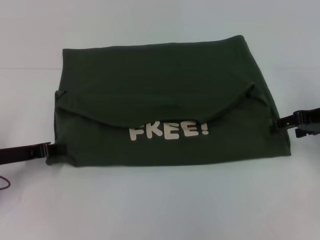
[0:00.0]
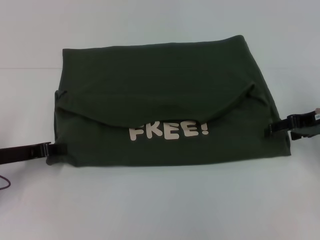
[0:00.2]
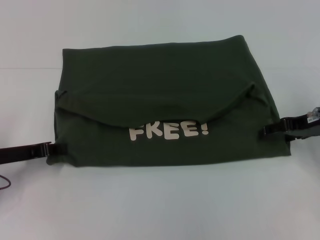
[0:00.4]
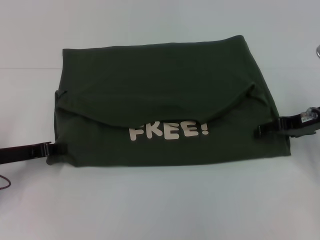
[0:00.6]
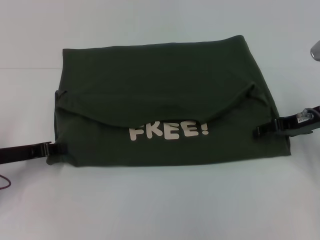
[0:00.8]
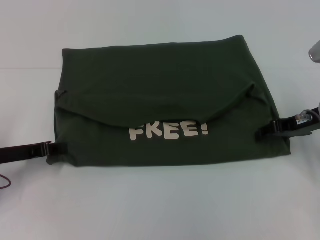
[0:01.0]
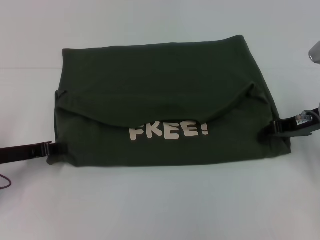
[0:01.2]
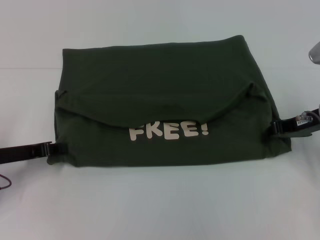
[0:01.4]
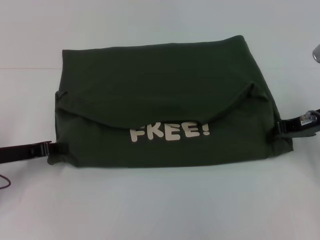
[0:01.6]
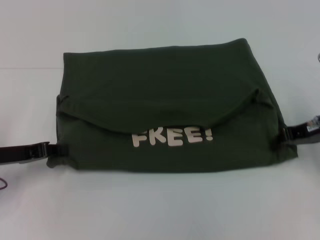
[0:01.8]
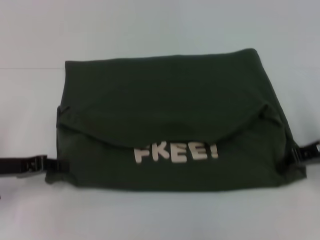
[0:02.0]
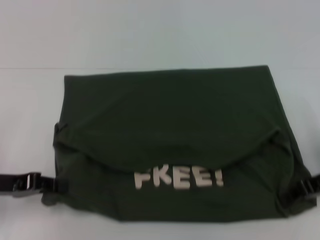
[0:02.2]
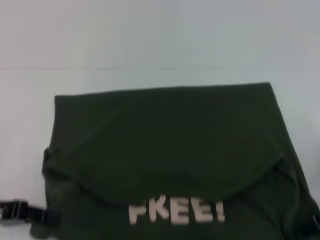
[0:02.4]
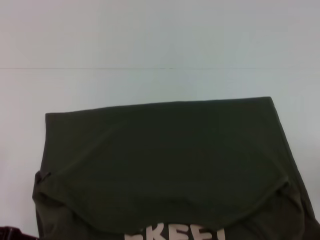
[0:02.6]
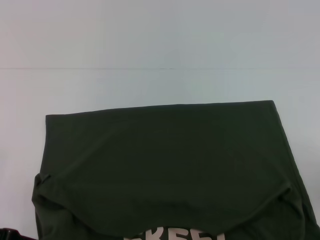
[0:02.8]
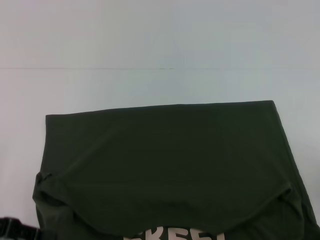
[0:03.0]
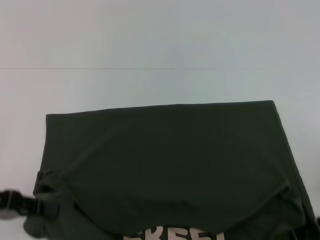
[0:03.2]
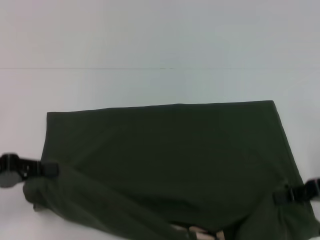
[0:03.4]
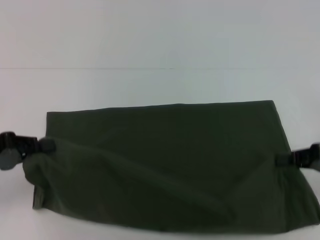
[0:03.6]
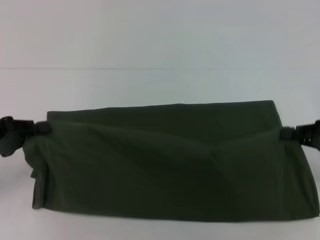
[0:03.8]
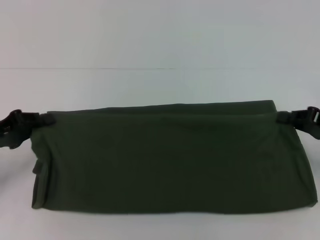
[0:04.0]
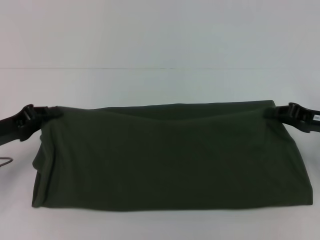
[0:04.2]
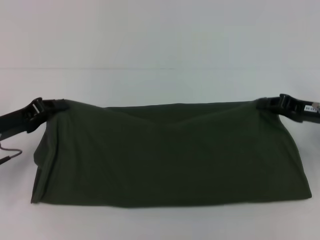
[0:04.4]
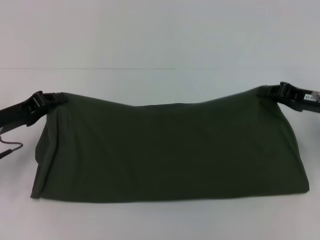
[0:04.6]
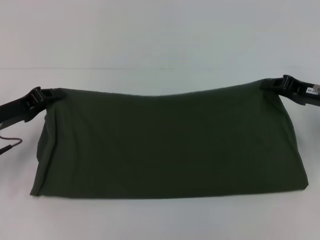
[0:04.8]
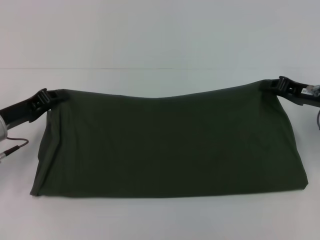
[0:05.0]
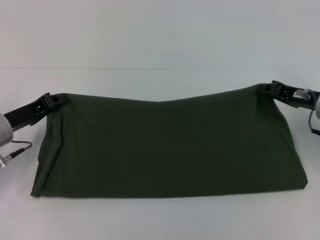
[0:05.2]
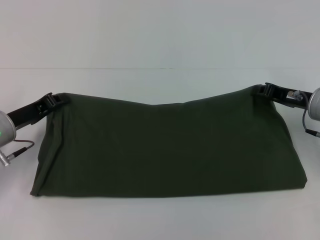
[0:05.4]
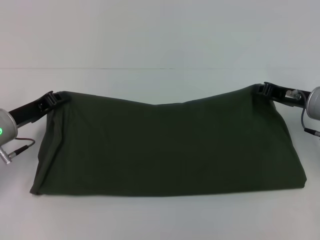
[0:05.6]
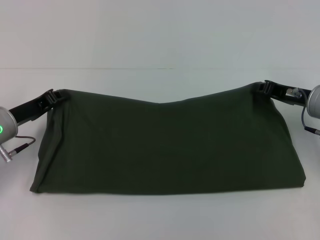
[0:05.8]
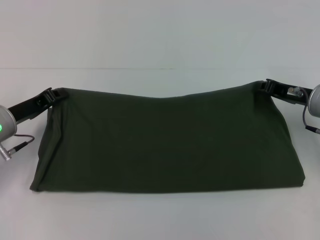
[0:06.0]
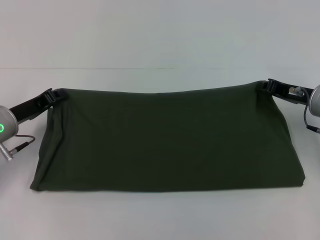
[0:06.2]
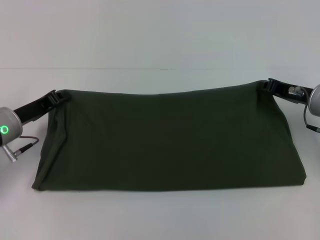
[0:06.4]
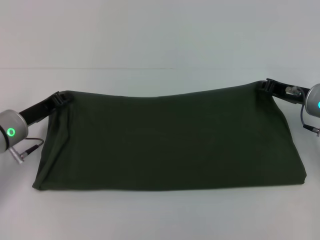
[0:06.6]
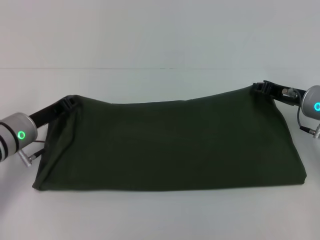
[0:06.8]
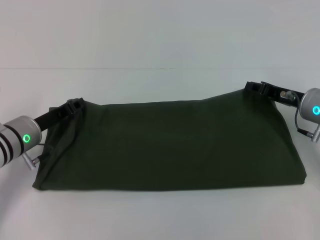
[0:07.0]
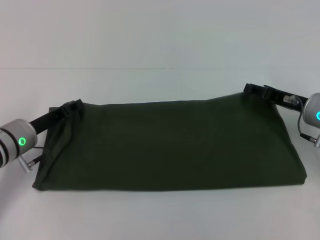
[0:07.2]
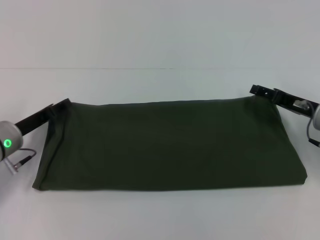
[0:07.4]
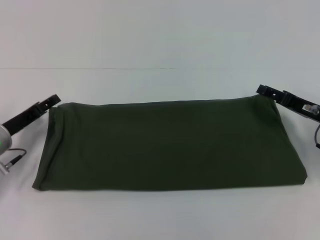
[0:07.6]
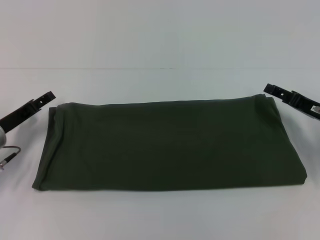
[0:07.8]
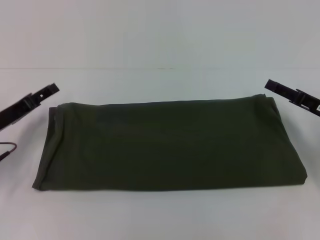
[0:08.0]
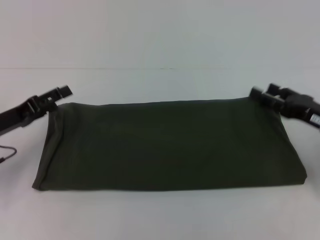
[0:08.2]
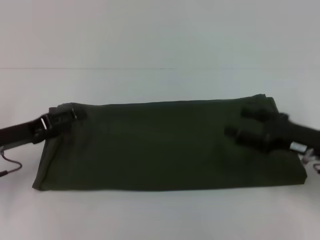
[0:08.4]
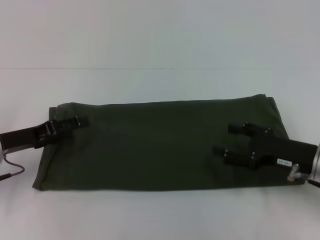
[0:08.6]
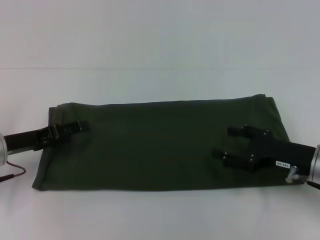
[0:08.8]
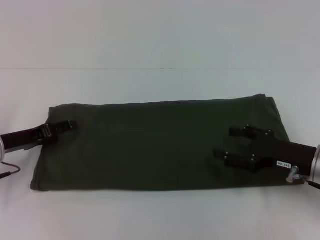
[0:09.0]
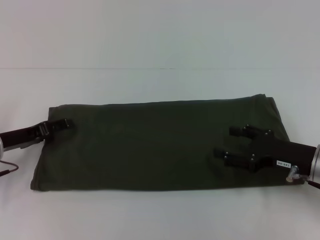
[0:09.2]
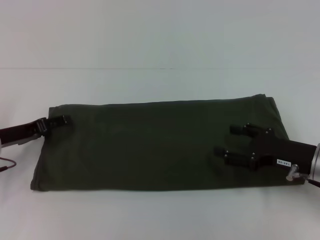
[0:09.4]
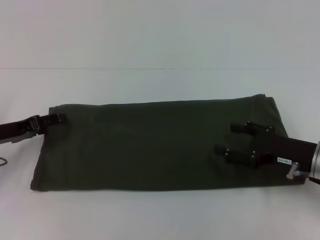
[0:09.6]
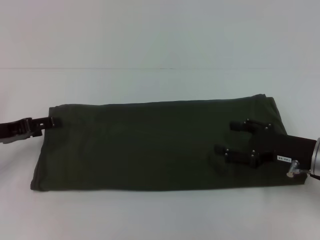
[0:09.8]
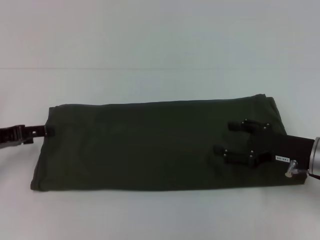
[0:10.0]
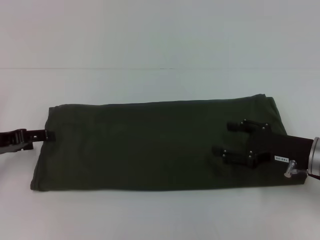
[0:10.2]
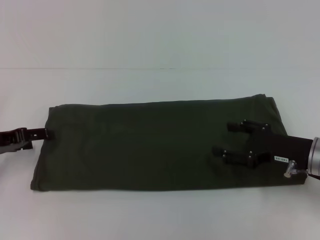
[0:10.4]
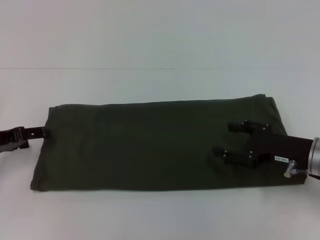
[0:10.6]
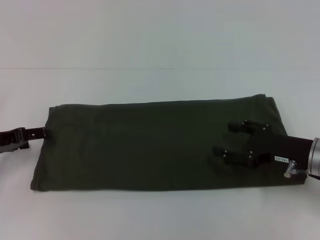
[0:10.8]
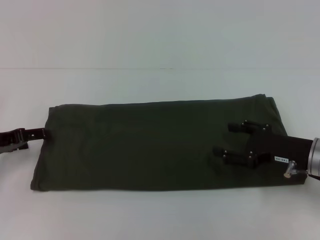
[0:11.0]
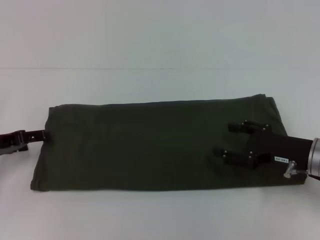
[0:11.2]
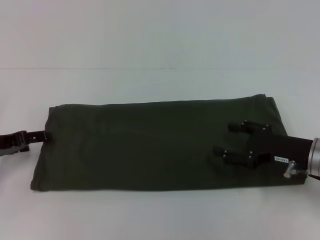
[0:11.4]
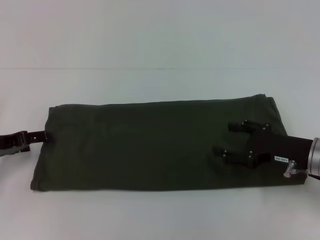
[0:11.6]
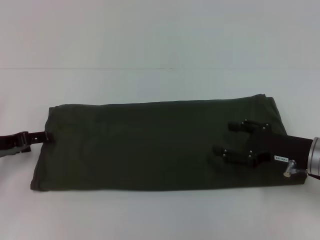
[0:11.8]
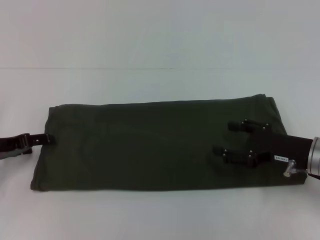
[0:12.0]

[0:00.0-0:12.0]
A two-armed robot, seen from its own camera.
Step, 0:00.0 to 0:02.6: Pull the clothes with your left hand.
Step, 0:00.0 to 0:02.6: Pull the clothes with your right hand.
Step, 0:02.8 to 0:07.6: Fold the clothes with your right hand.
0:00.0 to 0:01.6: The right gripper closes.
0:01.6 to 0:03.0: The left gripper moves backward, roughly 10 cm; the right gripper heads backward, covering about 15 cm.
0:03.0 to 0:04.4: Both grippers move forward, about 10 cm.
0:04.4 to 0:06.0: The grippers make only small movements.
0:06.0 to 0:07.6: The left gripper opens up. Meanwhile the right gripper opens up.
0:07.6 to 0:09.0: The right gripper is displaced backward by about 5 cm.
0:09.0 to 0:12.0: The grippers make only small movements.

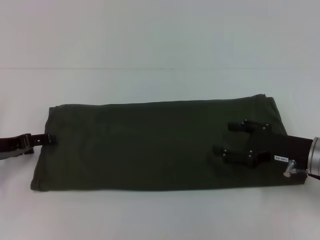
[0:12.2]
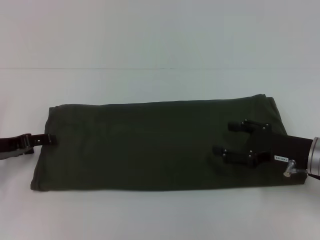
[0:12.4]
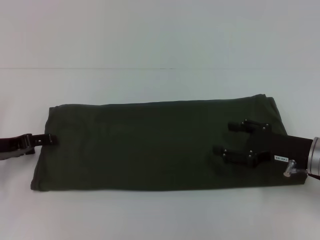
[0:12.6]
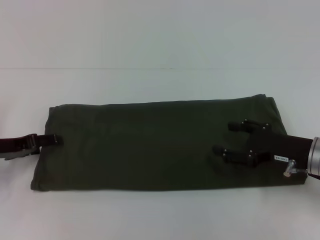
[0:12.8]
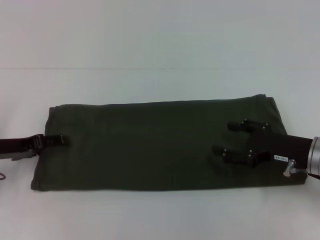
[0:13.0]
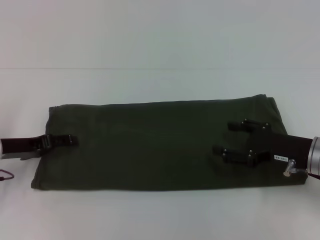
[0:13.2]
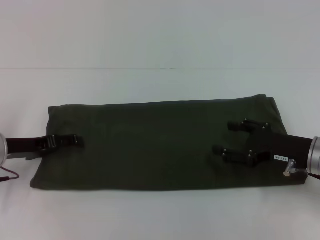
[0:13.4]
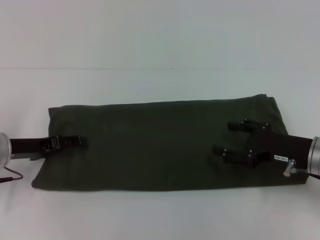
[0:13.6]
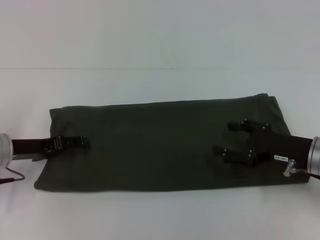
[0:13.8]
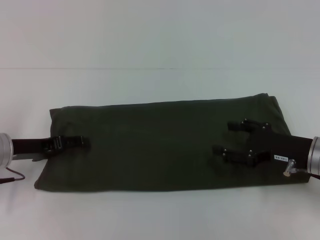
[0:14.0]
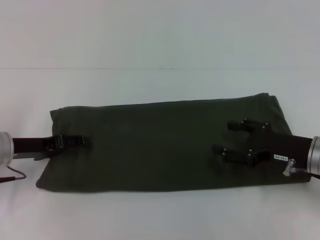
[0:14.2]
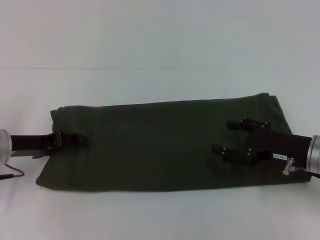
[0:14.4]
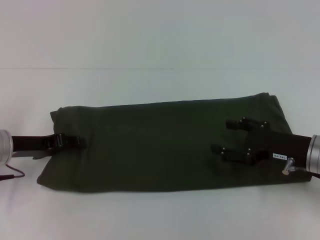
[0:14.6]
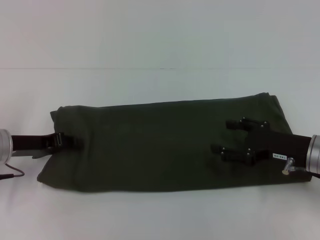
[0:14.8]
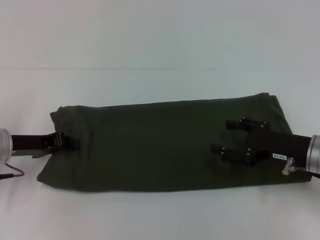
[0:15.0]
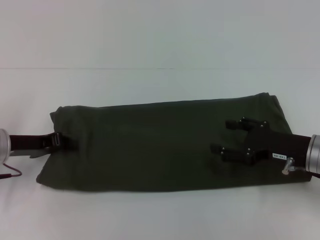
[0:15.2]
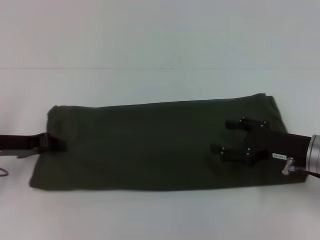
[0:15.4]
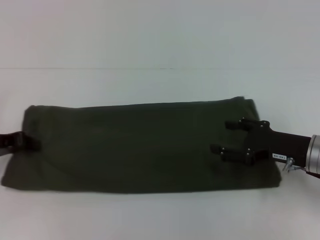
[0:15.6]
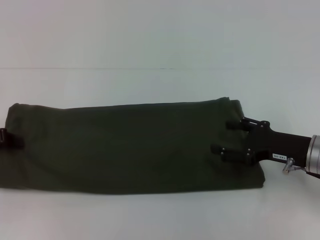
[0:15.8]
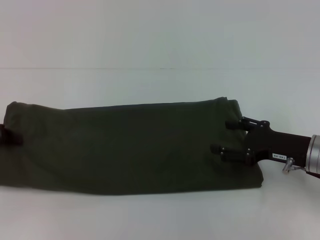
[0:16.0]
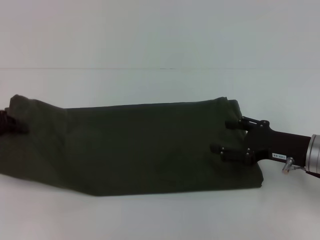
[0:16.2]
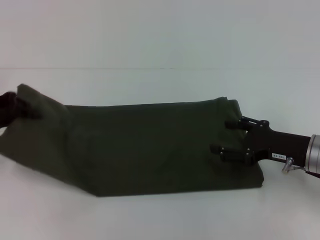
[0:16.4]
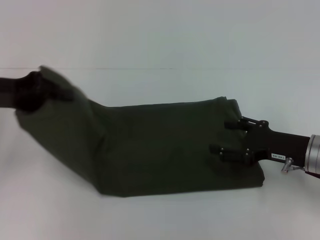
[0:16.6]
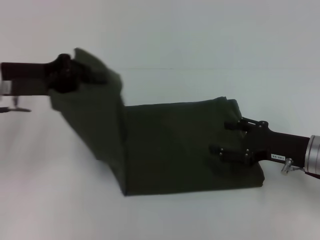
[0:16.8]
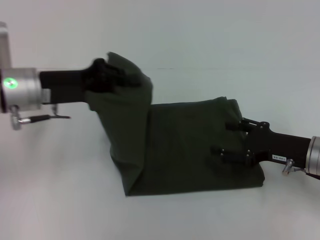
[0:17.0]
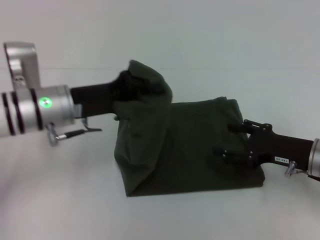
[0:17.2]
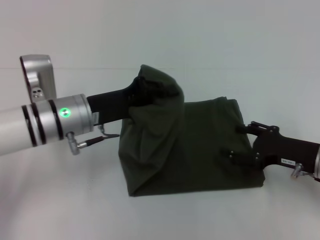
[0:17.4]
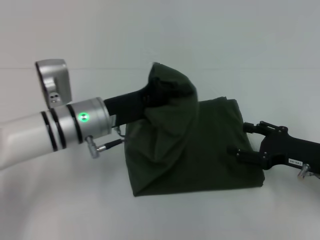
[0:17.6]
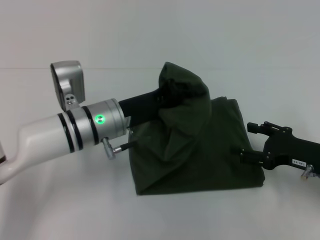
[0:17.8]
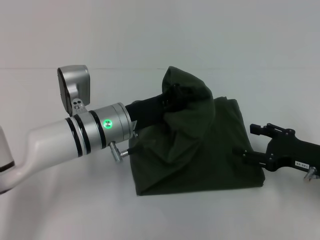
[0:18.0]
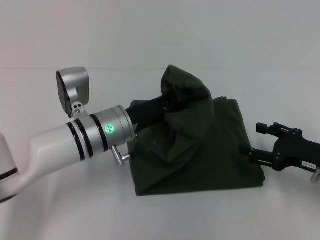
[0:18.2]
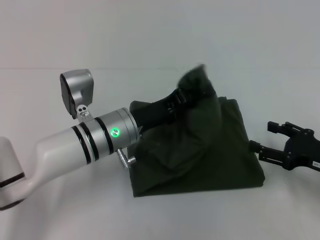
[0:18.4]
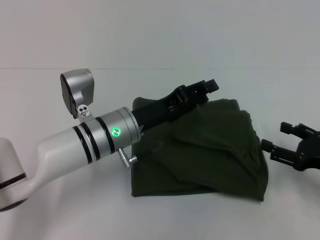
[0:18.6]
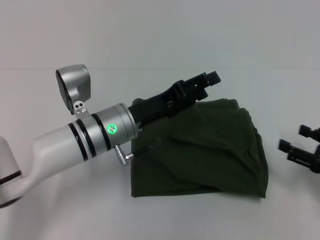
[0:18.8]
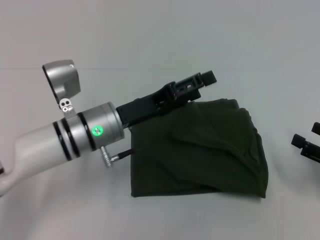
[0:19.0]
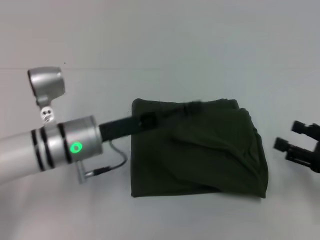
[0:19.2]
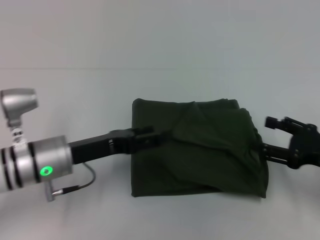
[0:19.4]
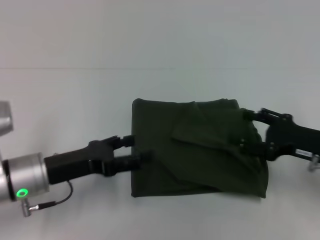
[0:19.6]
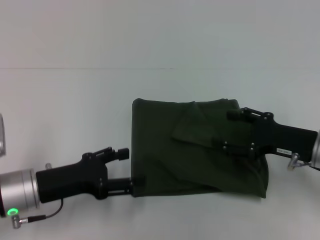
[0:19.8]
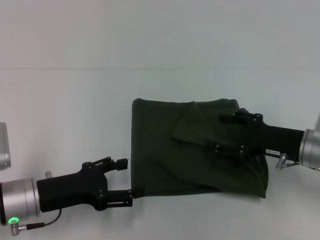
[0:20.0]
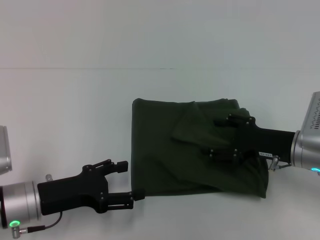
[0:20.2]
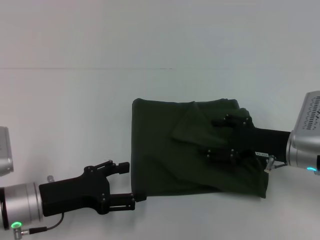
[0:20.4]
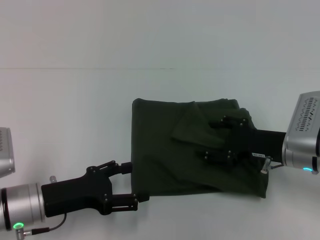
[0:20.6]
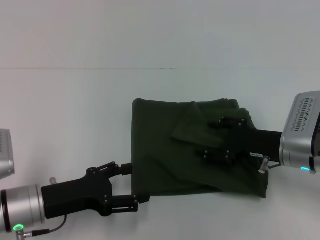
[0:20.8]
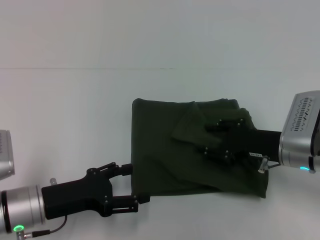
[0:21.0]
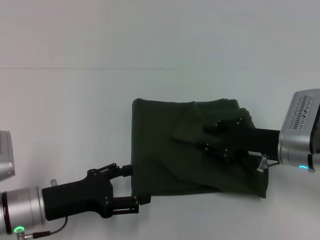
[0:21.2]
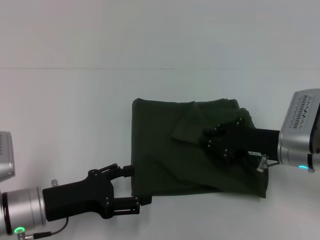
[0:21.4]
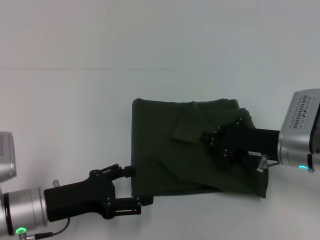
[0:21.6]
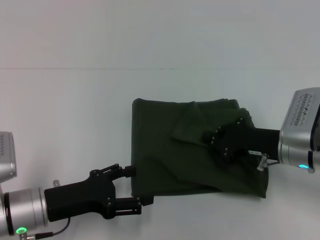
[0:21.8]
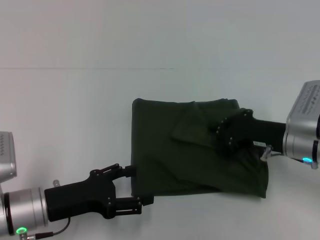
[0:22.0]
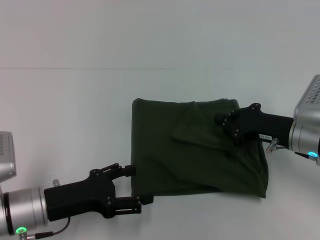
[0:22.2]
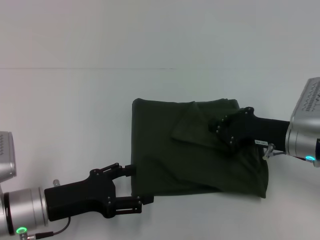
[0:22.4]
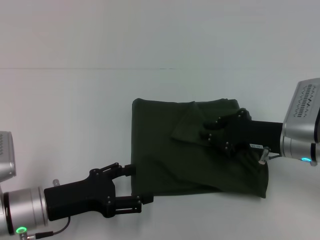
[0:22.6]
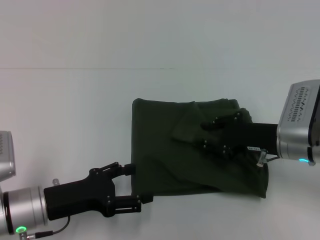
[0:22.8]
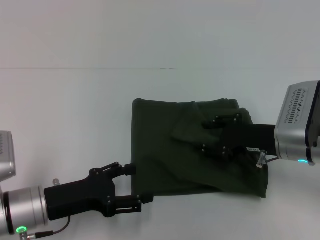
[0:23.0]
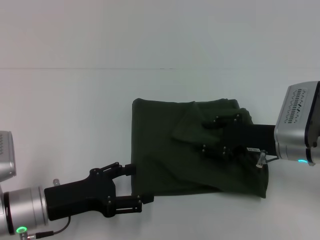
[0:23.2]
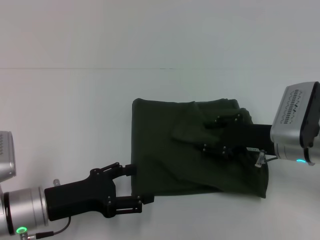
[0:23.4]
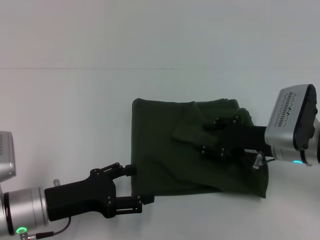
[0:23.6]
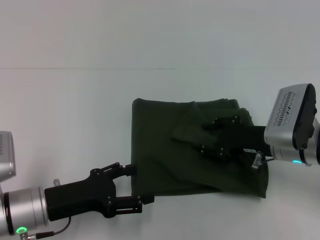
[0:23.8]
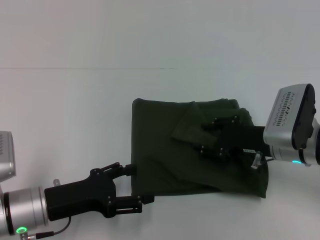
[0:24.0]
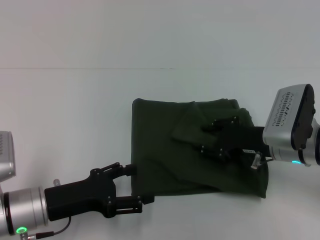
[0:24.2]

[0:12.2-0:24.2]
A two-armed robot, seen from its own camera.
Step, 0:12.2 to 0:18.6: Fold the clothes with your left hand.
0:12.2 to 0:13.8: There are only small adjustments of the grippers.
0:13.8 to 0:15.2: The left gripper closes up.
0:15.2 to 0:16.6: The left gripper travels upward by roughly 10 cm.
0:16.6 to 0:18.2: The left gripper moves to the right and downward, approximately 20 cm.
0:18.2 to 0:19.8: The left gripper goes some 15 cm to the left and backward, and opens up.
0:19.8 to 0:21.2: There are only small adjustments of the grippers.
0:21.2 to 0:22.6: The right gripper closes its fingers.
0:22.6 to 0:24.2: The right gripper opens.
